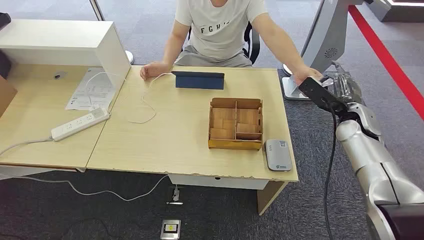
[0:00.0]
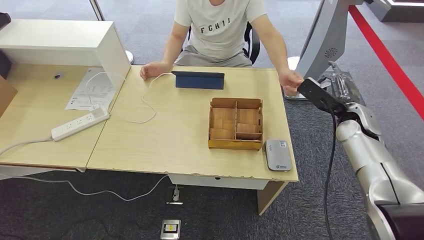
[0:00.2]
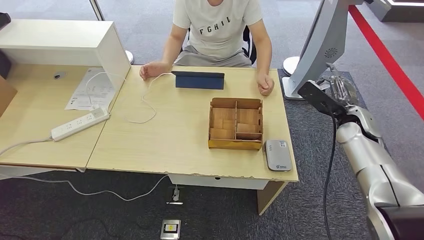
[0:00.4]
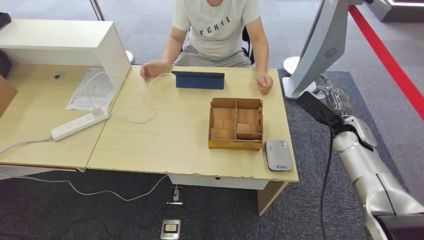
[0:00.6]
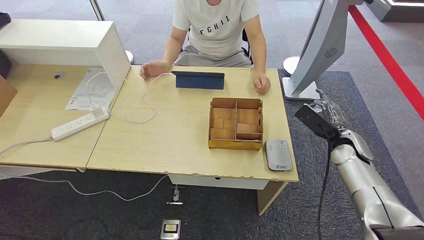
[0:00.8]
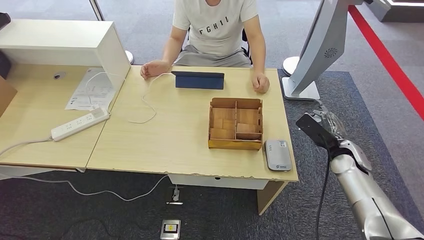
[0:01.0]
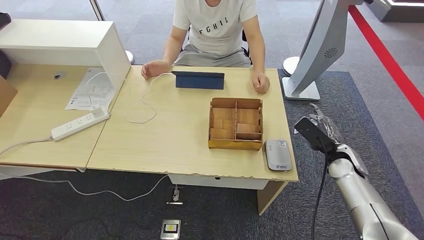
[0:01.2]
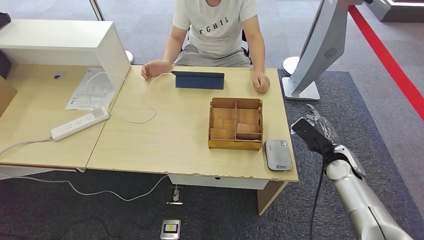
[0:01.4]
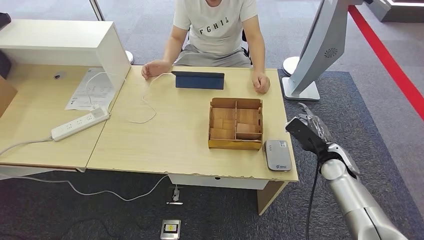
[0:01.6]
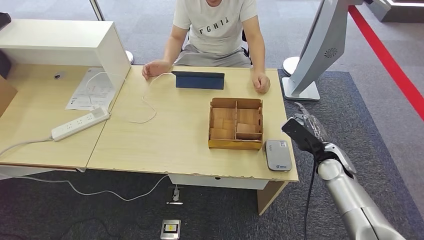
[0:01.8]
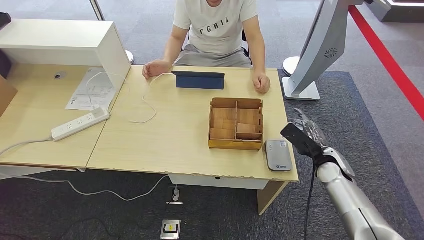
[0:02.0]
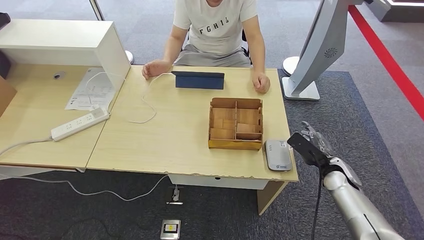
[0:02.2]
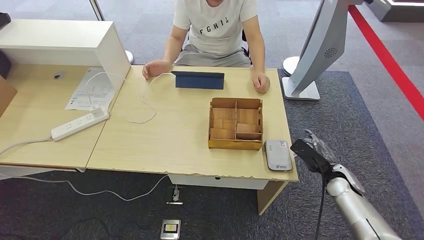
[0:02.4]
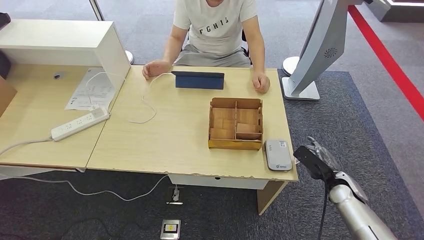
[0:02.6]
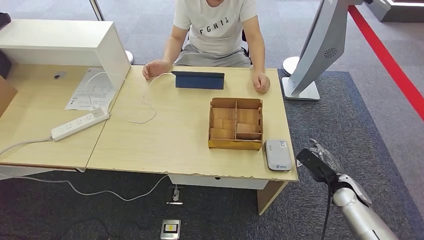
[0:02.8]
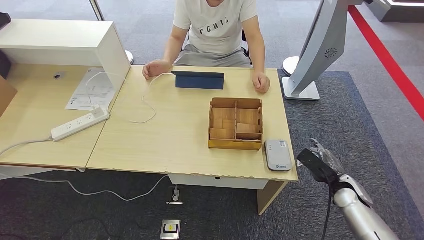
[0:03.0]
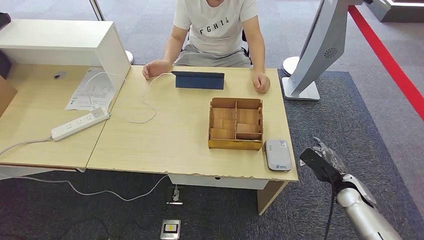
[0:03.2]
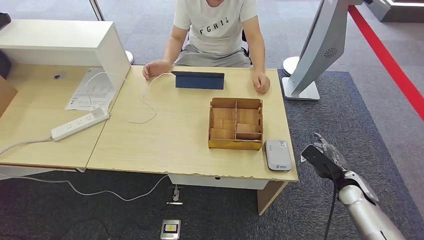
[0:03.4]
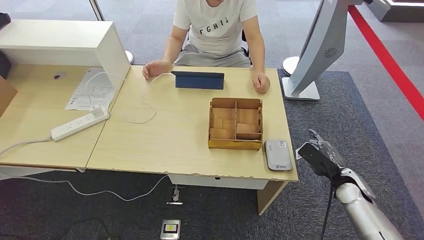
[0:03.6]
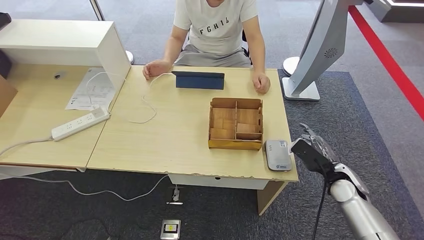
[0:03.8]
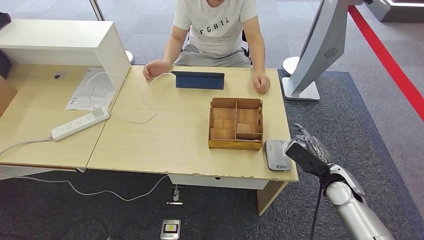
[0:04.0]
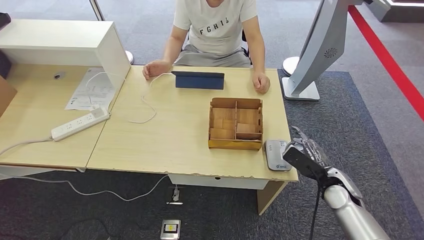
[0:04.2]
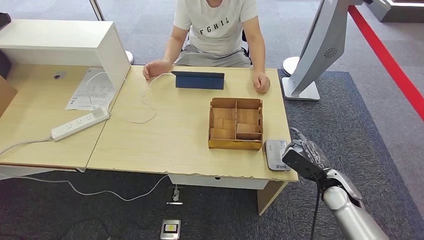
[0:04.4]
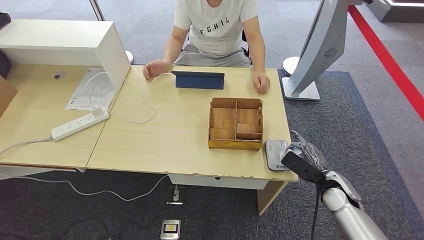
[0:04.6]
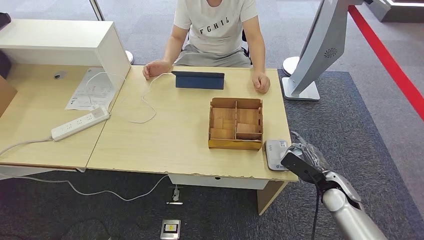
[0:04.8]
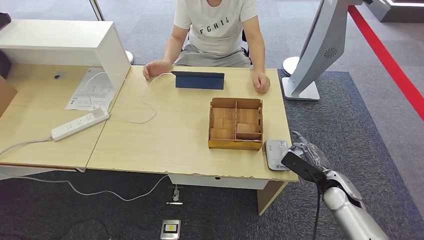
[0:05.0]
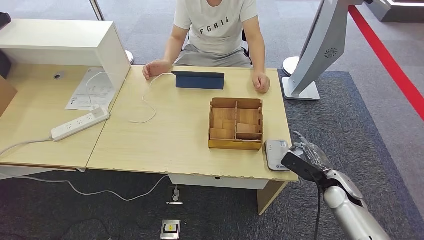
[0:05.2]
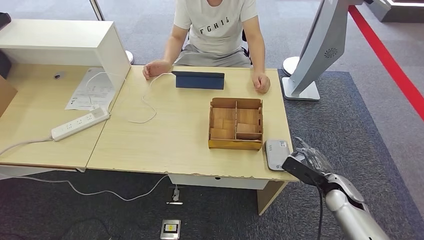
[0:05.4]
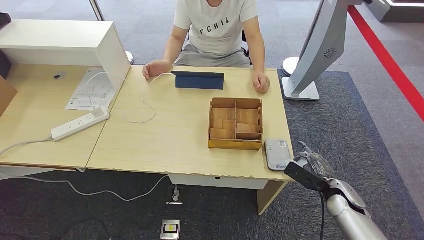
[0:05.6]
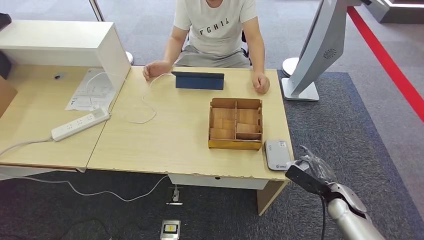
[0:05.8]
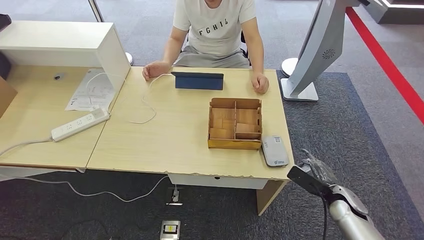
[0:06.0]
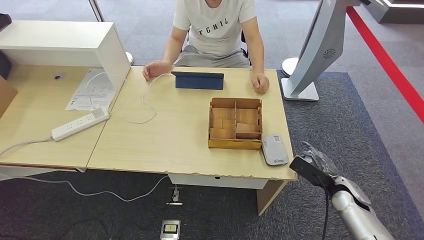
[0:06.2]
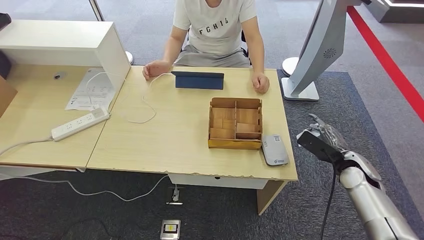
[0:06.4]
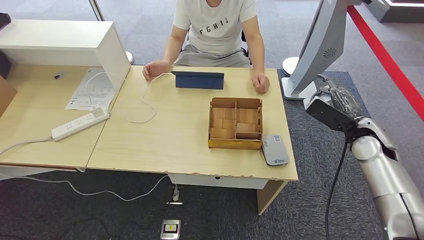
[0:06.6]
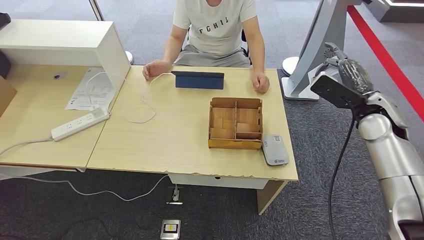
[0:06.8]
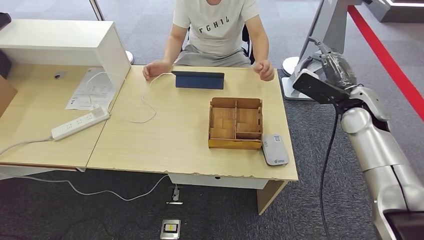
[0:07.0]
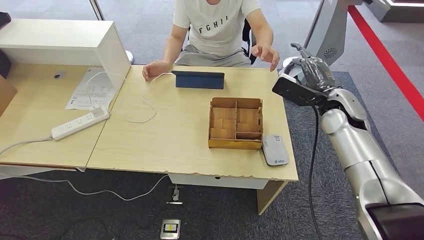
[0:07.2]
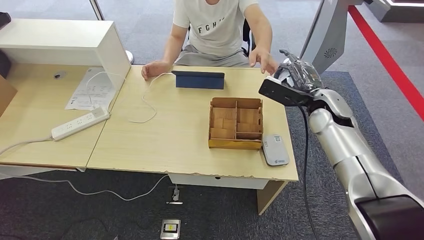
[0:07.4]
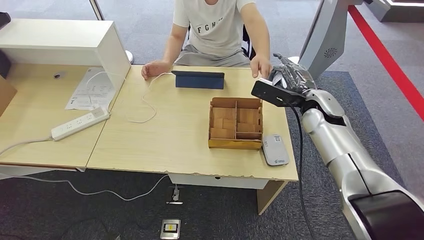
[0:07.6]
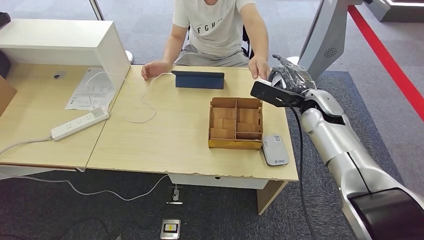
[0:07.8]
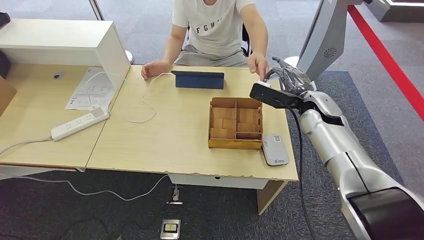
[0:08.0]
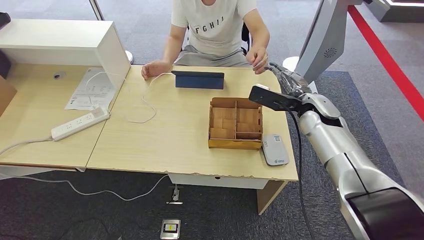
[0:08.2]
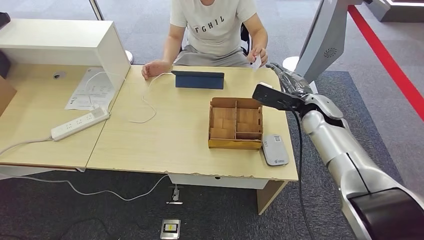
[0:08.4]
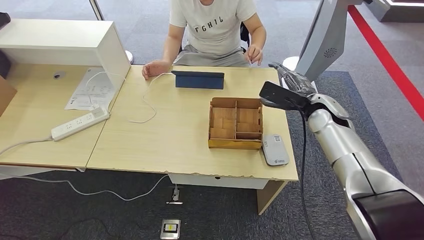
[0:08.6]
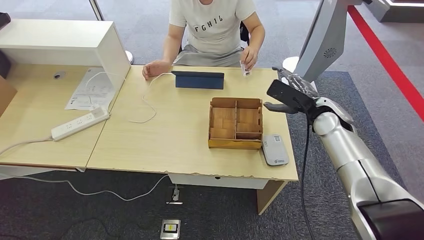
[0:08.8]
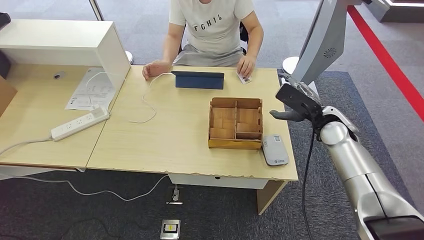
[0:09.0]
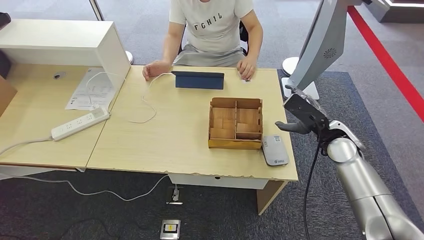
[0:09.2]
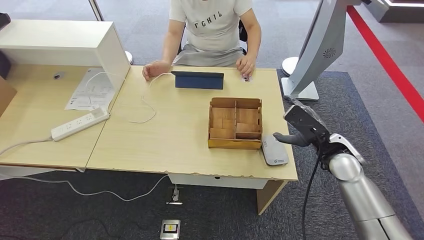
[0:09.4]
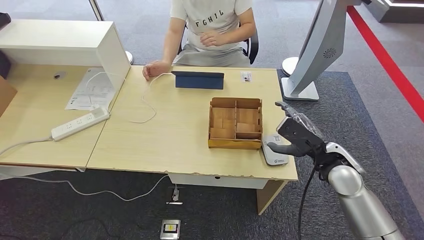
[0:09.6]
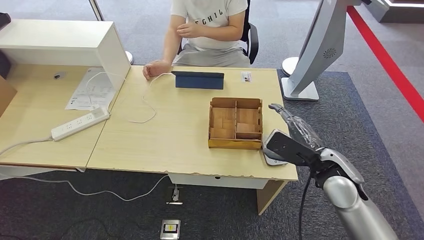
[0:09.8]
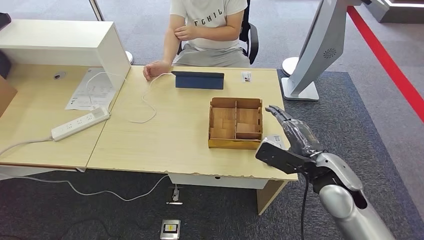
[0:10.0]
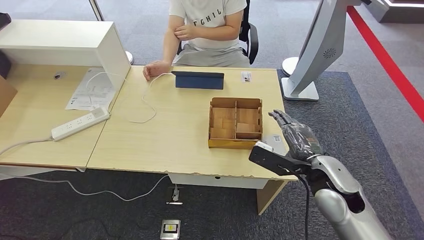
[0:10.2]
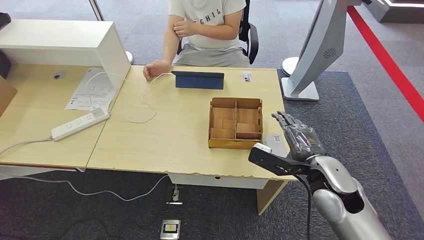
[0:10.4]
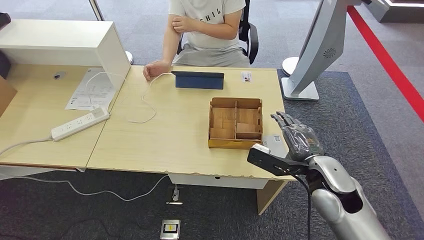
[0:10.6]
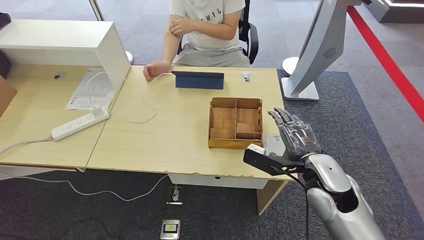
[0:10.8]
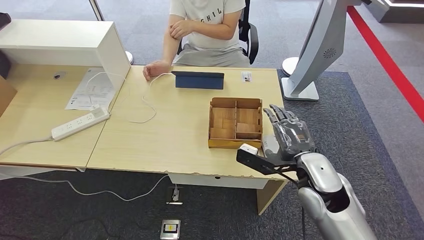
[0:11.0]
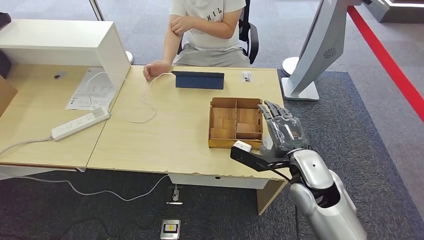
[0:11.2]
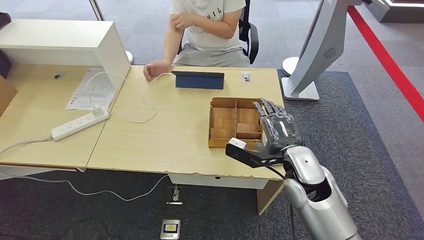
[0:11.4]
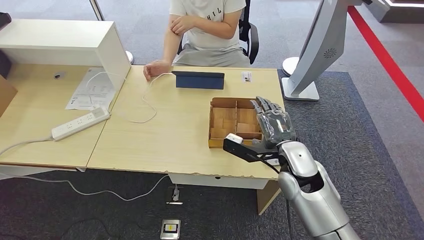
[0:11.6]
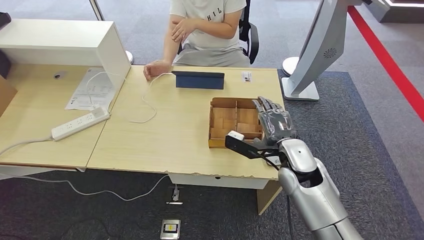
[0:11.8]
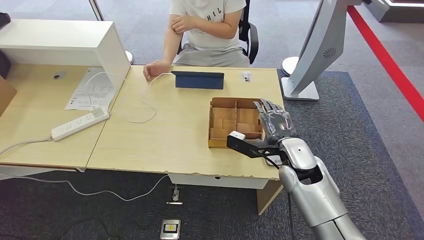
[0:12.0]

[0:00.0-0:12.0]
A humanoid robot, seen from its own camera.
Step, 0:00.0 to 0:01.2: Take the ID card from the person's hand.
Step, 0:01.4 to 0:06.2: Place the ID card on the card reader.
Step, 0:06.4 to 0:10.8: Hand the ID card to the person.
0:01.6 to 0:03.0: The right hand is displaced downward, backward and to the right by approximately 10 cm.
0:03.0 to 0:04.4: The right hand is displaced to the left by some 5 cm.
0:04.4 to 0:06.0: The right hand is displaced downward by approximately 5 cm.
0:06.0 to 0:07.6: The right hand moves upward, forward and to the left, approximately 30 cm.
0:07.6 to 0:09.0: The right hand shifts by some 5 cm.
0:09.0 to 0:10.4: The right hand moves backward, roughly 15 cm.
0:10.4 to 0:12.0: The right hand goes roughly 10 cm to the left and forward.

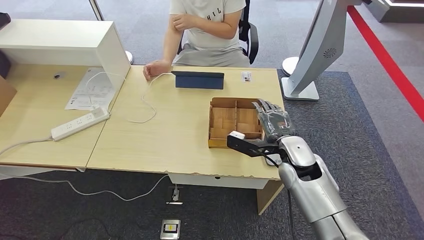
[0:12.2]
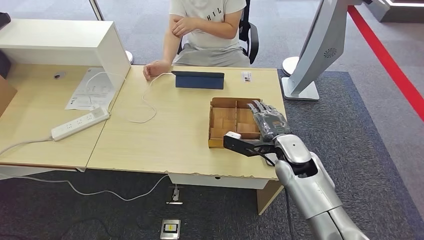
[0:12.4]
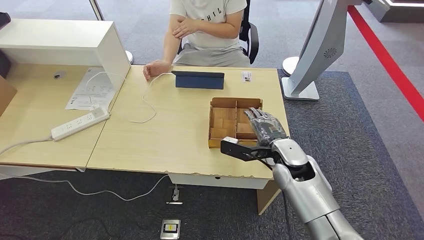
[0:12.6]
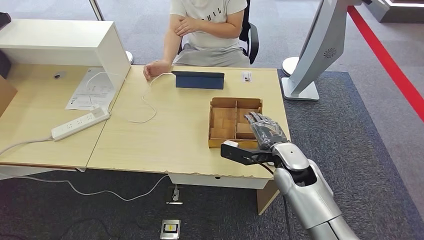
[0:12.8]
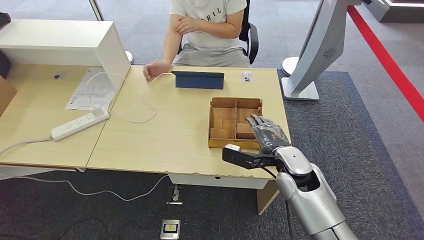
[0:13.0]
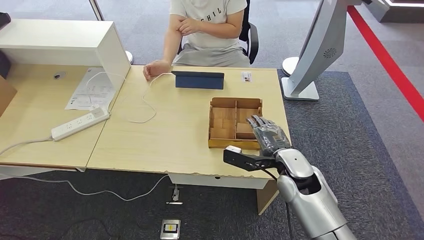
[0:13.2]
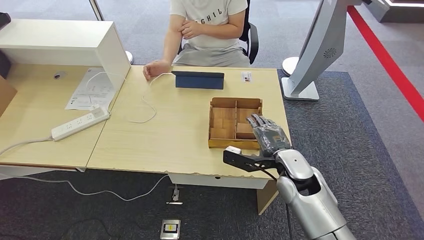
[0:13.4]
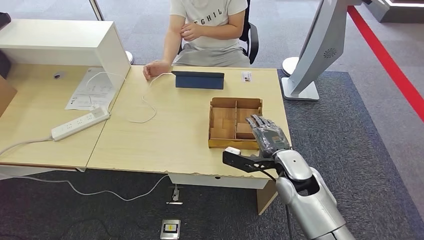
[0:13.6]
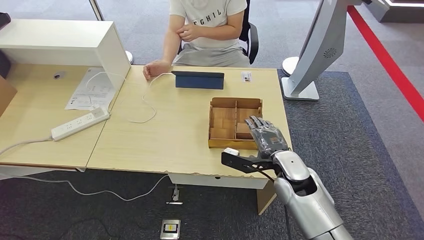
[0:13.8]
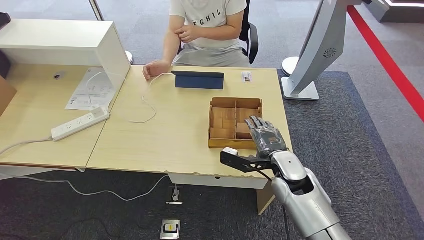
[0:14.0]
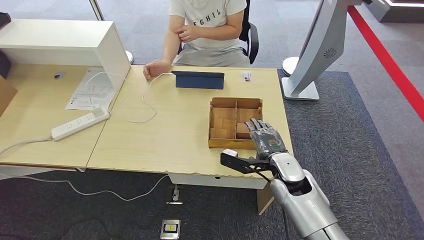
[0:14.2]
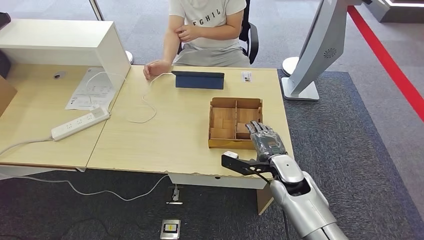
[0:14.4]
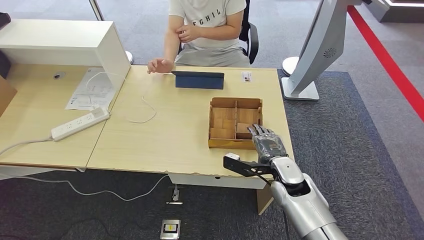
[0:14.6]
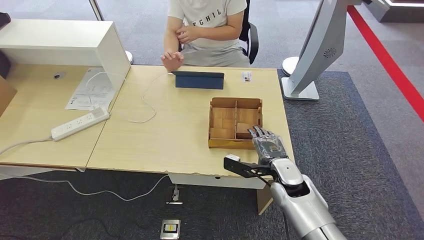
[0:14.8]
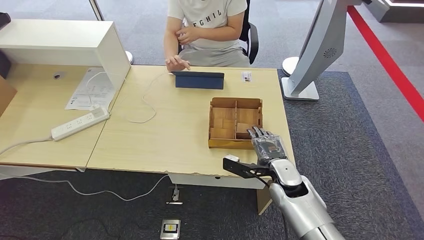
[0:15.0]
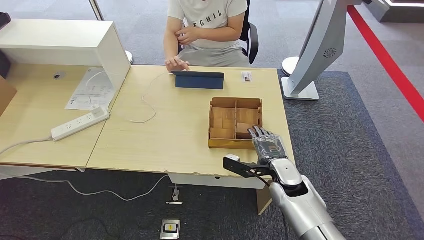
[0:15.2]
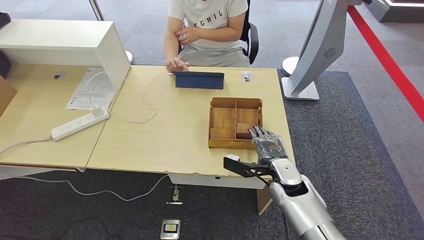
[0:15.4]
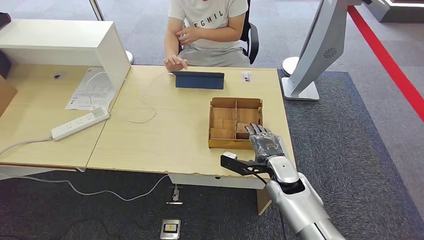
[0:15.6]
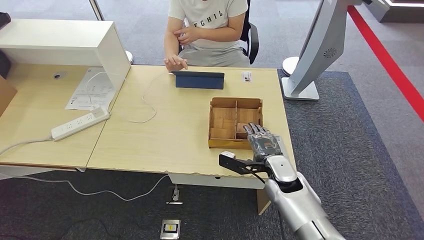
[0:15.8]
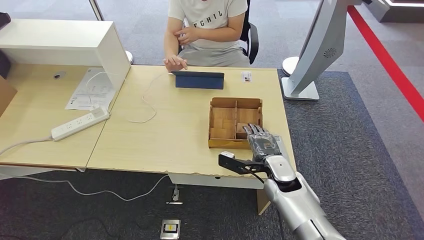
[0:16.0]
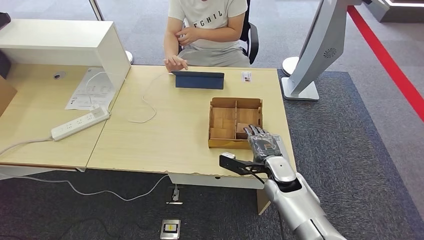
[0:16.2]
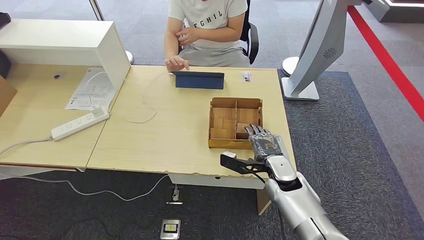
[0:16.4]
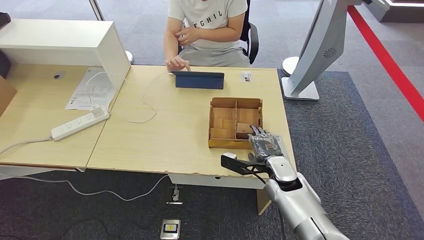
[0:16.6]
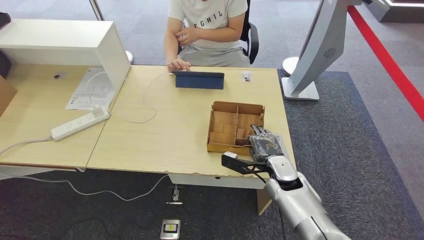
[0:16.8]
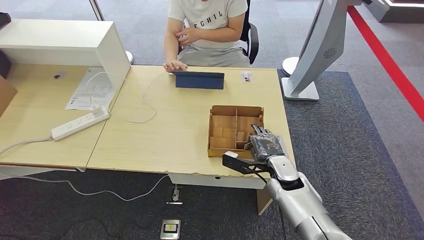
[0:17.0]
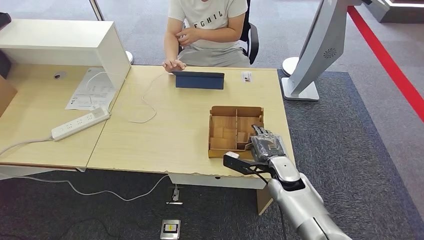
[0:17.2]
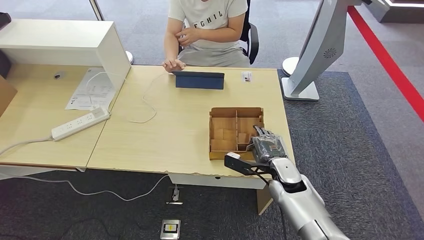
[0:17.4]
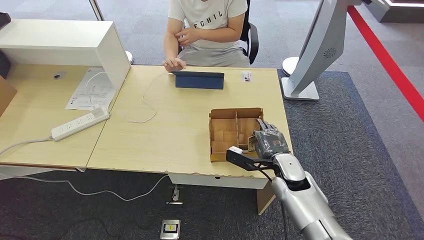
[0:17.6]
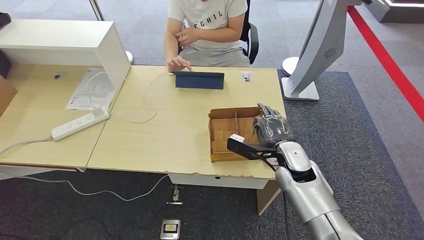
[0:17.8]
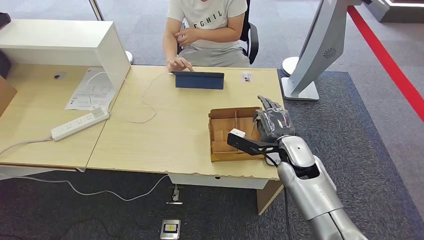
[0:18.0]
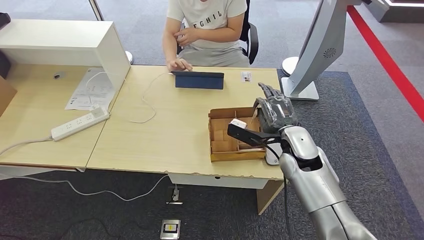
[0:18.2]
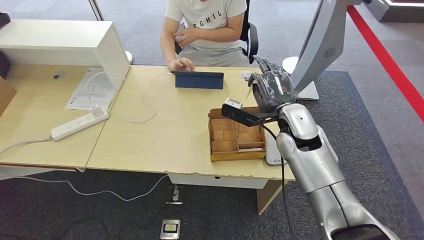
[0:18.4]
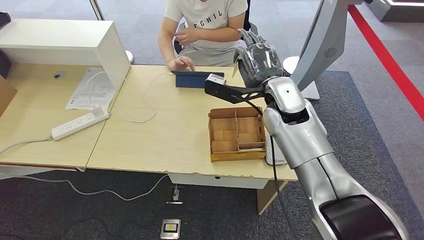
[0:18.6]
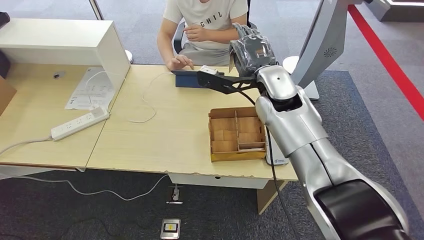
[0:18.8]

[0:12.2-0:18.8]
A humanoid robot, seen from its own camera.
Step, 0:12.2 to 0:18.0: Pick up the room key from the key card box.
0:12.2 to 0:13.8: There are only small adjustments of the hands.
0:13.8 to 0:15.4: The right hand is displaced downward by approximately 5 cm.
0:15.4 to 0:17.2: There are only small adjustments of the hands.
0:17.2 to 0:18.8: The right hand shifts about 25 cm upward and forward.
